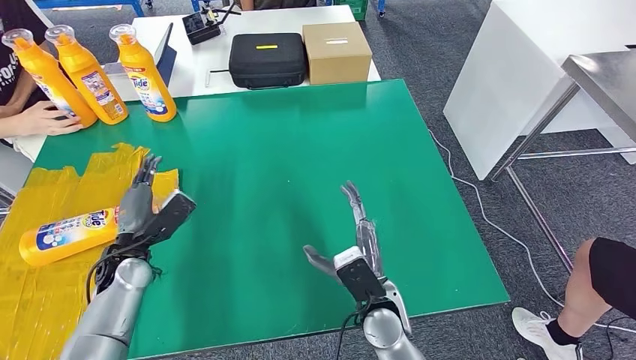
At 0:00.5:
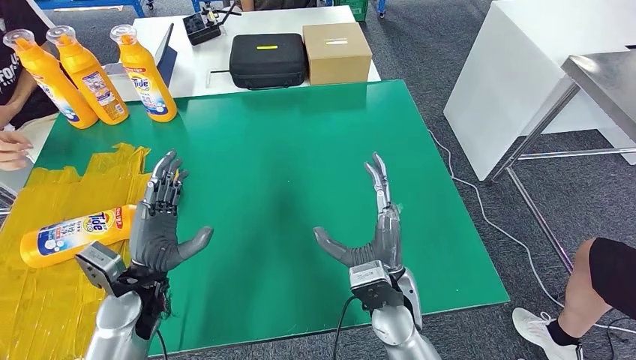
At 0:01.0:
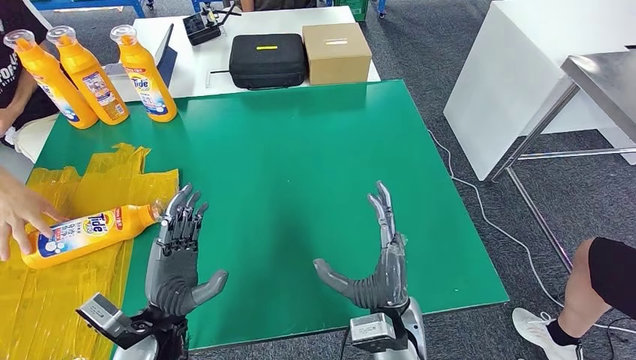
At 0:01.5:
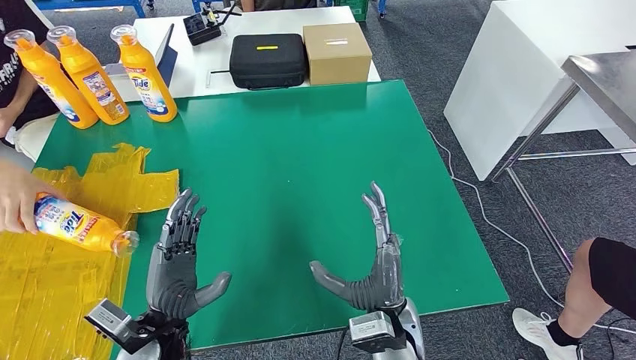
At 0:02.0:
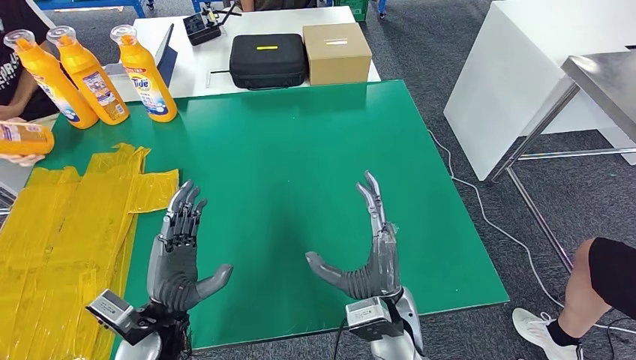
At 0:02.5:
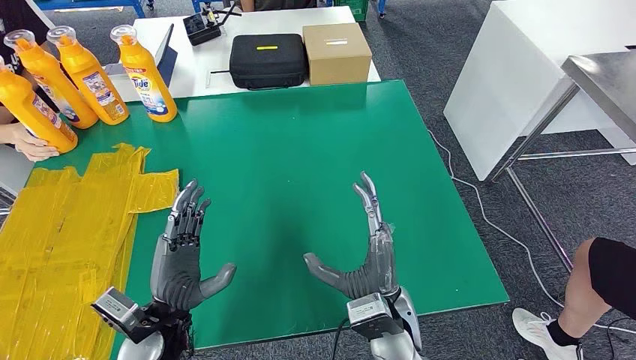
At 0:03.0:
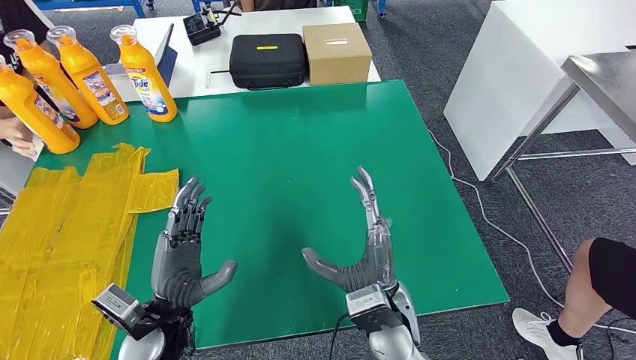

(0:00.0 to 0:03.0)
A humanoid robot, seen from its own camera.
Step, 0:00.0 - 0:03.0: Flip the fast-moving consumer goods bottle to the front side.
0:00.0 - 0:01.5: The right hand ends up approximately 5 cm from where it was. Meanwhile the left hand is displaced backward and to the right by some 15 cm.
0:01.5 - 0:03.0: The hands make only small movements.
